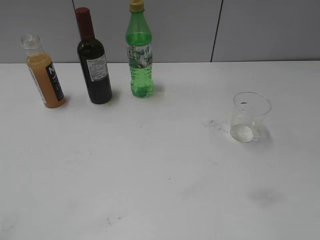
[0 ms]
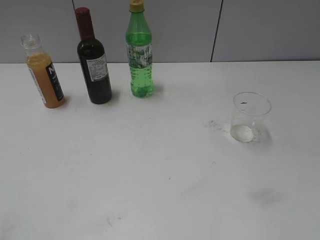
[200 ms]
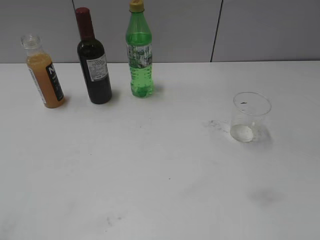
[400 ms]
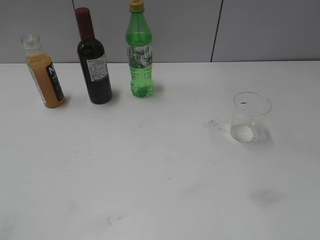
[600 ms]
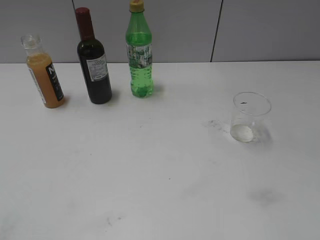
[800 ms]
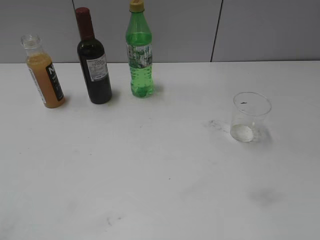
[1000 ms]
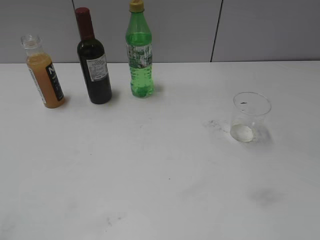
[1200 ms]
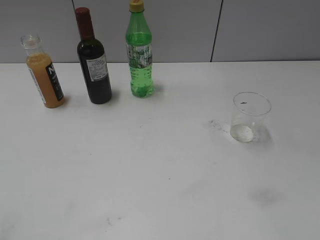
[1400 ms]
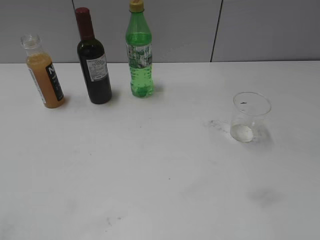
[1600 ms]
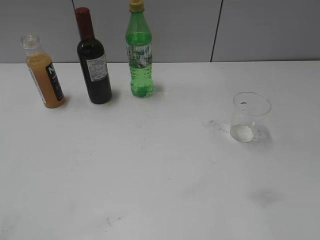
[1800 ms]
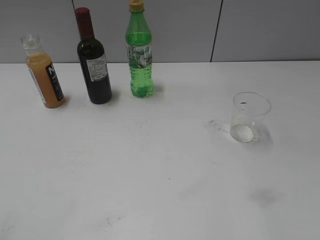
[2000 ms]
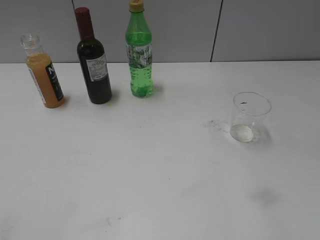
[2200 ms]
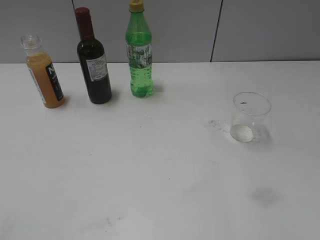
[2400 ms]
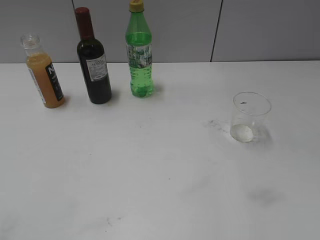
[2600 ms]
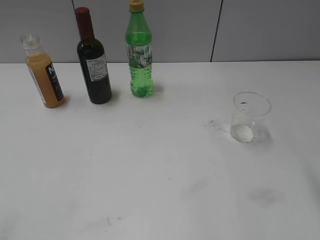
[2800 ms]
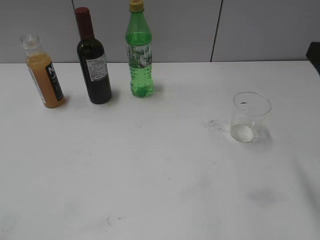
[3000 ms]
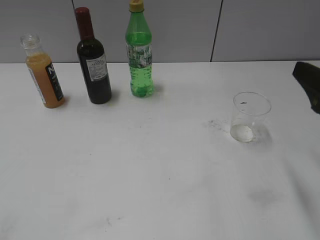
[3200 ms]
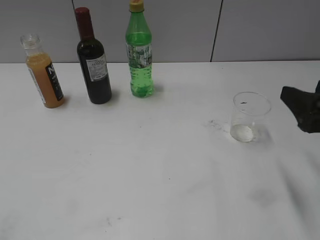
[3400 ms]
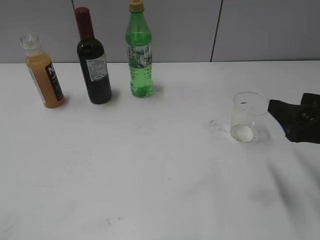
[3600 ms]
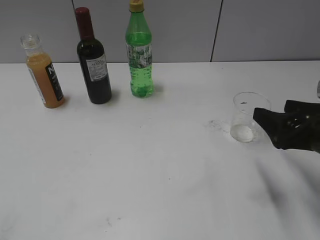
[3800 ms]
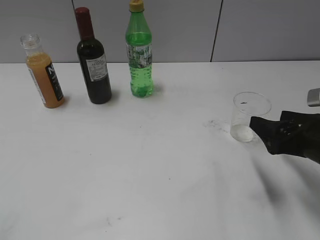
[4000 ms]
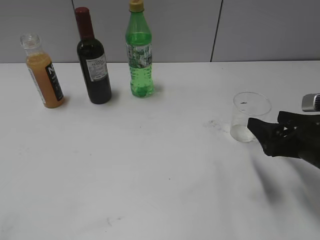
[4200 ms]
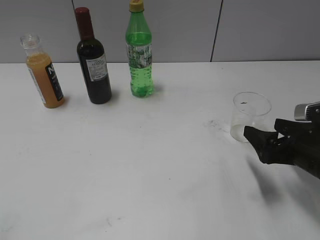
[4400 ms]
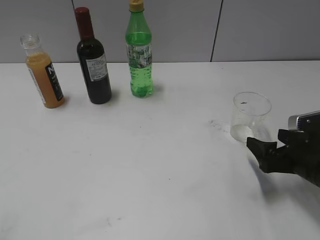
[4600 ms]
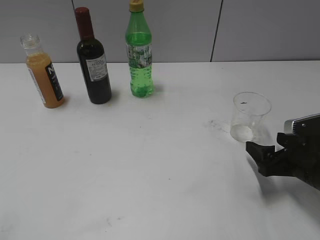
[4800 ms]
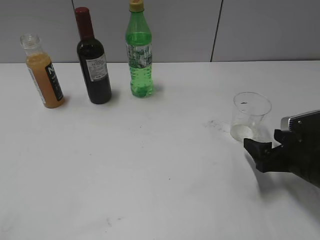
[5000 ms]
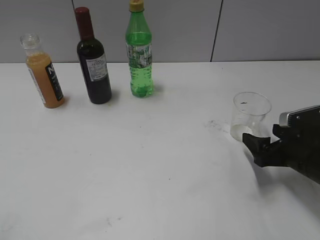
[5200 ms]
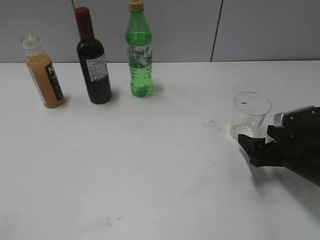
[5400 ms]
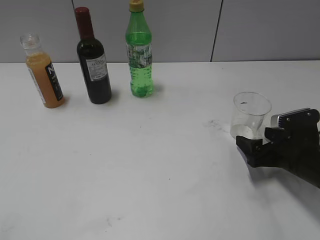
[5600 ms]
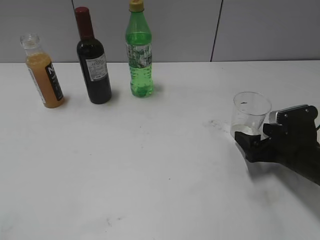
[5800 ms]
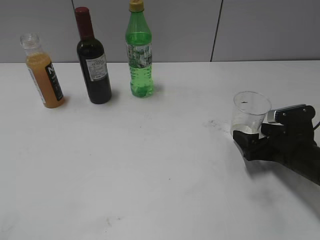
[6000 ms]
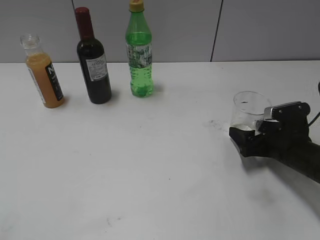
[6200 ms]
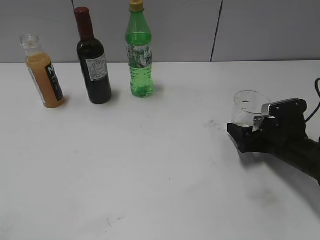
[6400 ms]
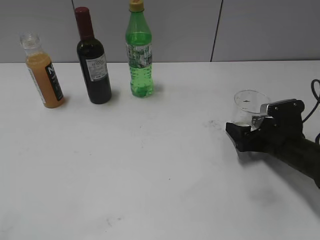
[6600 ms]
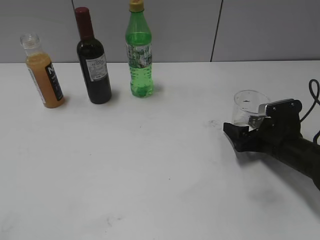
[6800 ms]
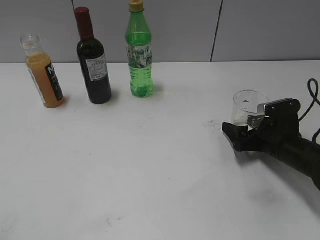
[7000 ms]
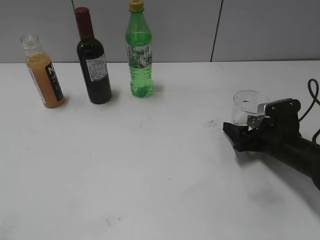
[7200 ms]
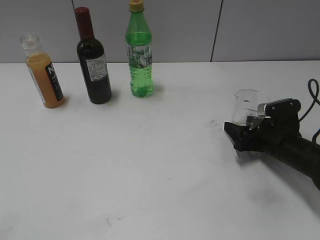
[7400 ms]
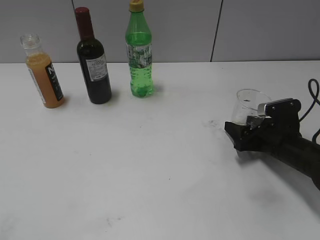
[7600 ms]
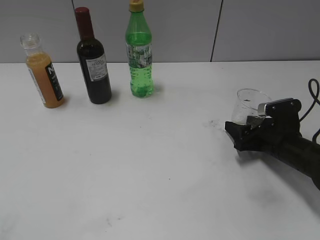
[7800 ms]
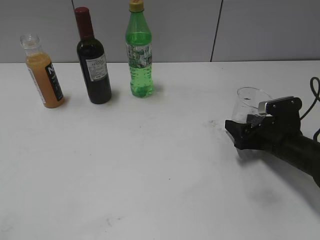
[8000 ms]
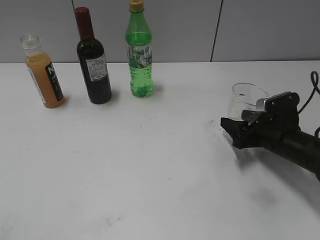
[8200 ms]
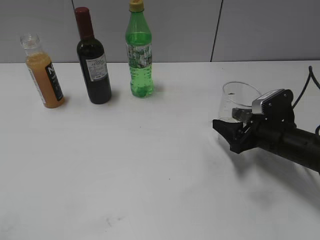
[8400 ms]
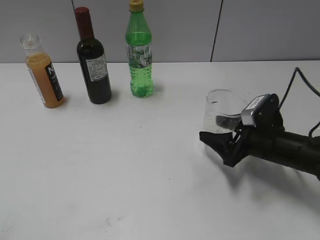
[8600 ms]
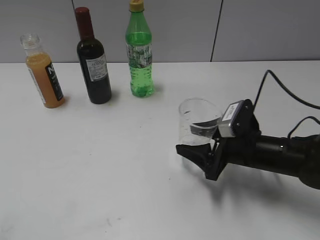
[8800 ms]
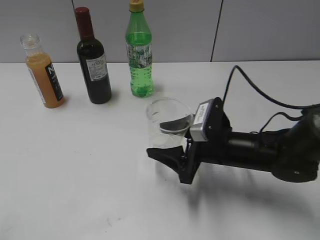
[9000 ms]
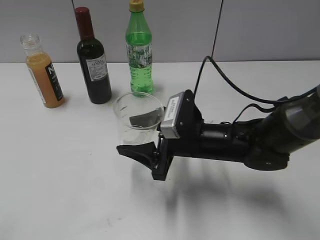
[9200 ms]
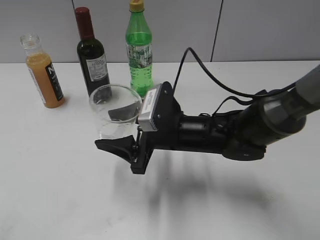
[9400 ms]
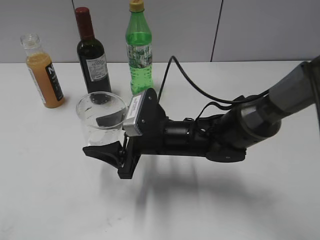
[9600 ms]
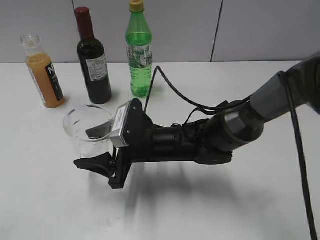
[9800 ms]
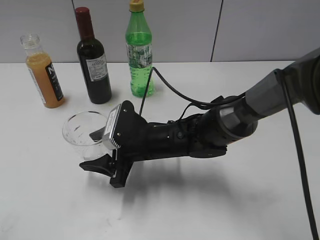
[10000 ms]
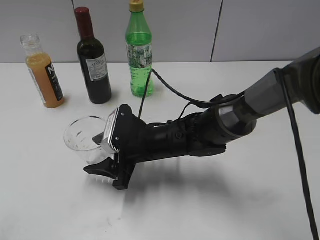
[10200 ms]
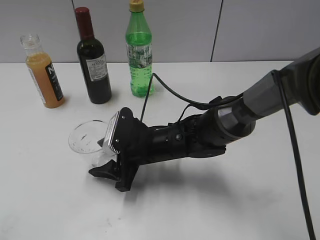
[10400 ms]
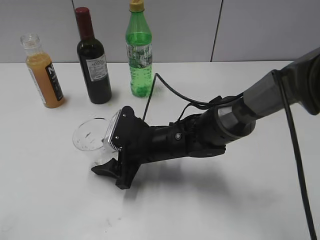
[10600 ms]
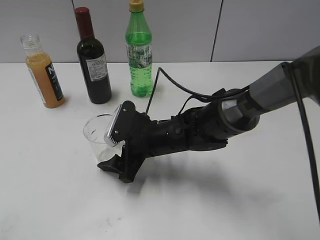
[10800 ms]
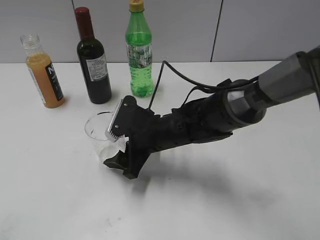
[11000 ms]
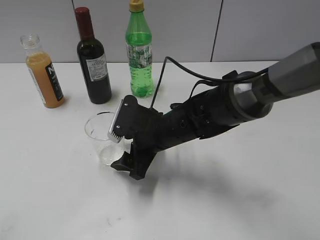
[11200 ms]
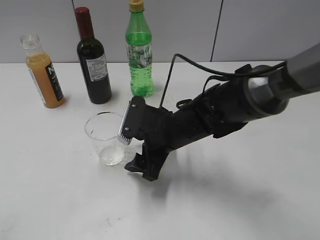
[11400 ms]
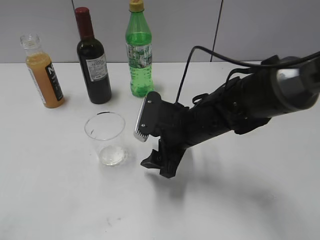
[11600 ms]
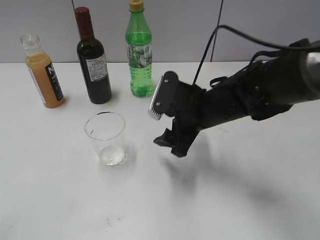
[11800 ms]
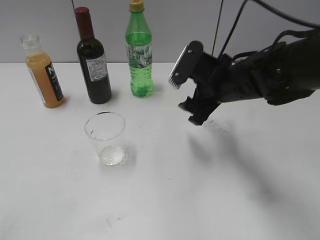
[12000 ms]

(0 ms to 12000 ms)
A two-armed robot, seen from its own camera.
Step, 3000 ms - 7600 ms: Grasp the transparent cup with right gripper.
Step, 7800 ms - 11400 ms: Place the transparent cup on the table with right gripper.
1600 ms - 3000 ms: The right gripper heads forward and downward, covering approximately 20 cm.
3000 ms - 4400 ms: The right gripper goes roughly 15 cm downward, and opens up.
4400 ms - 6000 ms: The right gripper moves downward, approximately 5 cm.
6000 ms - 7600 ms: The right gripper closes.
7600 ms - 9000 ms: The right gripper travels to the left by approximately 15 cm.
9000 ms - 10400 ms: The right gripper heads to the left, covering approximately 10 cm.
10400 ms - 12000 ms: The right gripper is displaced to the right and upward by about 15 cm, and opens.

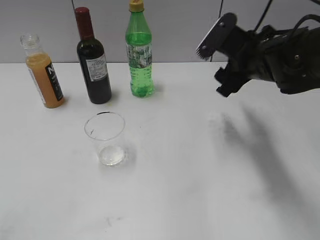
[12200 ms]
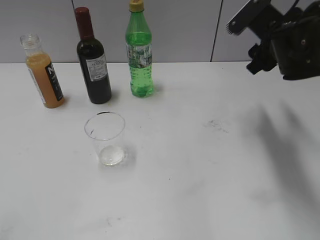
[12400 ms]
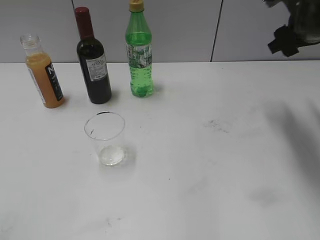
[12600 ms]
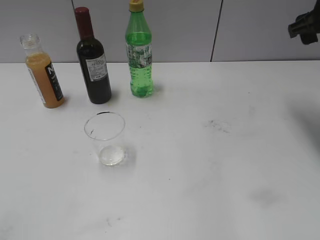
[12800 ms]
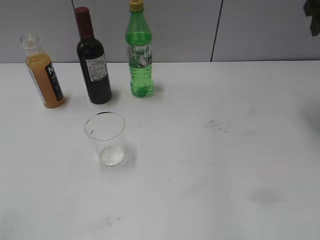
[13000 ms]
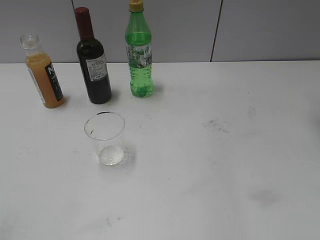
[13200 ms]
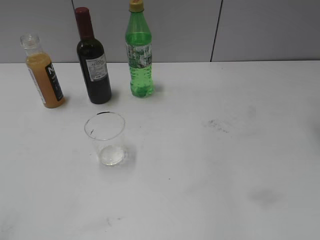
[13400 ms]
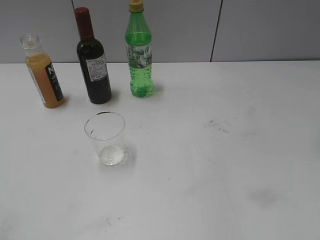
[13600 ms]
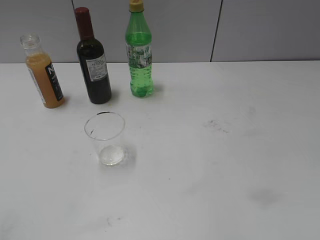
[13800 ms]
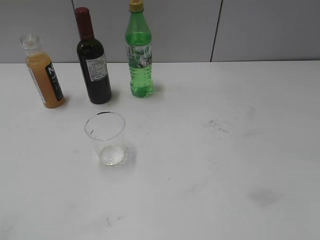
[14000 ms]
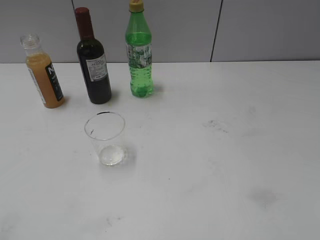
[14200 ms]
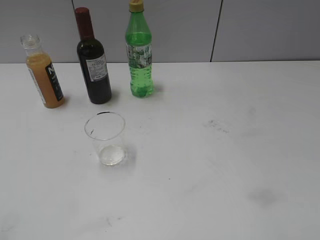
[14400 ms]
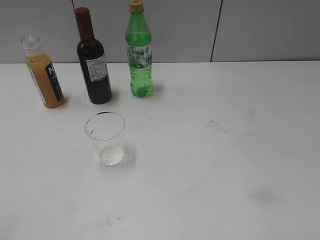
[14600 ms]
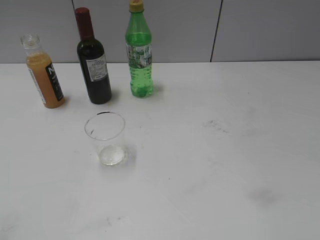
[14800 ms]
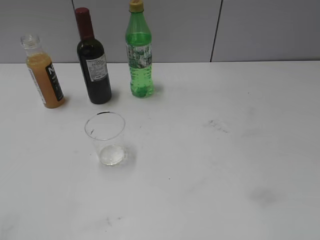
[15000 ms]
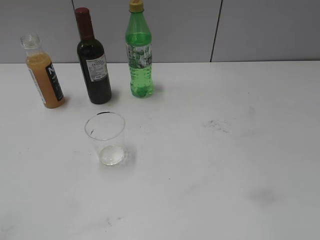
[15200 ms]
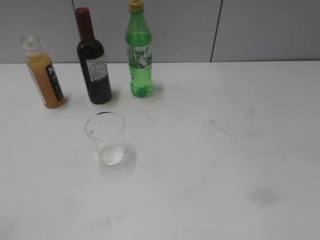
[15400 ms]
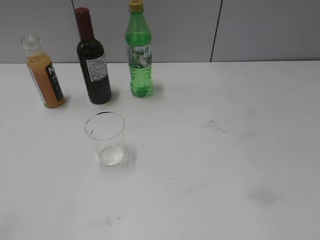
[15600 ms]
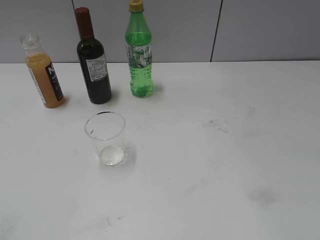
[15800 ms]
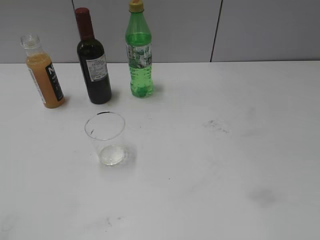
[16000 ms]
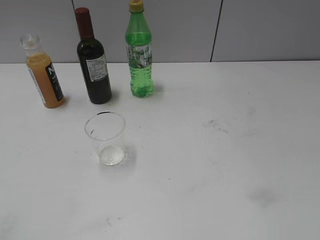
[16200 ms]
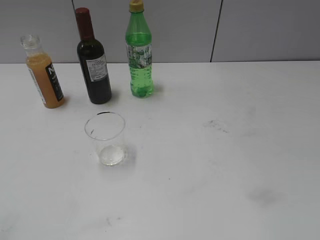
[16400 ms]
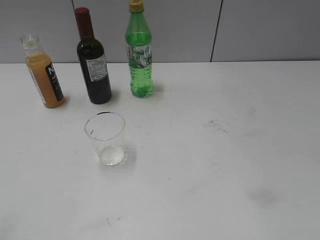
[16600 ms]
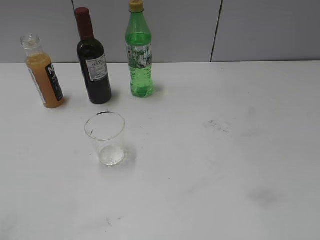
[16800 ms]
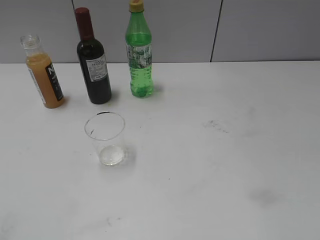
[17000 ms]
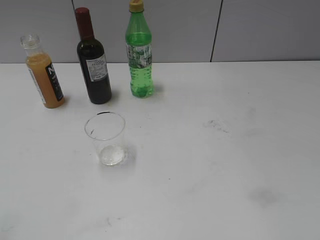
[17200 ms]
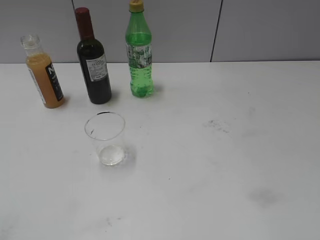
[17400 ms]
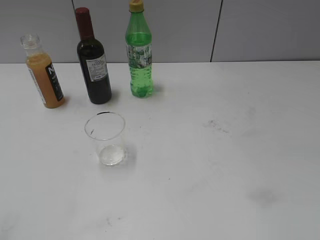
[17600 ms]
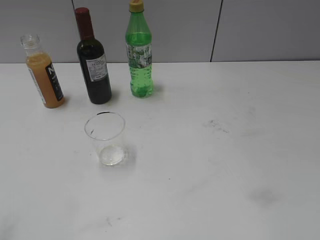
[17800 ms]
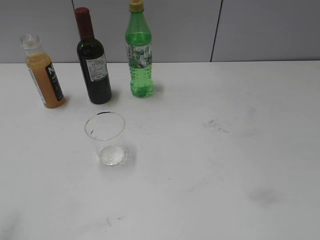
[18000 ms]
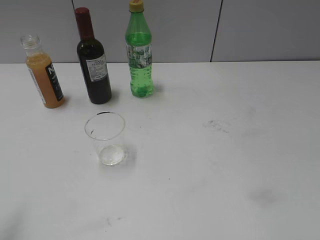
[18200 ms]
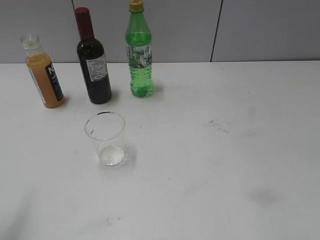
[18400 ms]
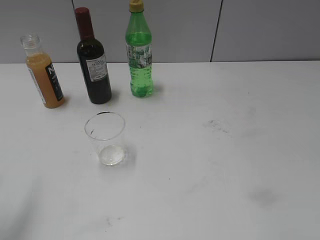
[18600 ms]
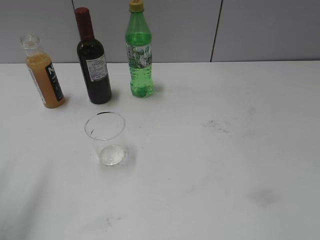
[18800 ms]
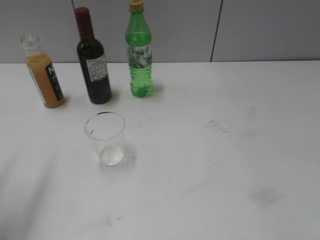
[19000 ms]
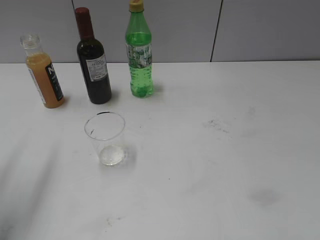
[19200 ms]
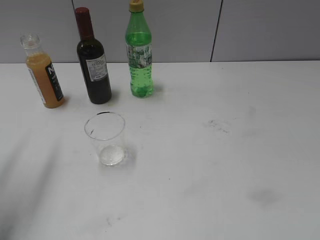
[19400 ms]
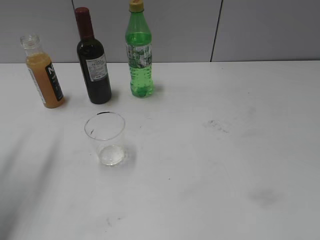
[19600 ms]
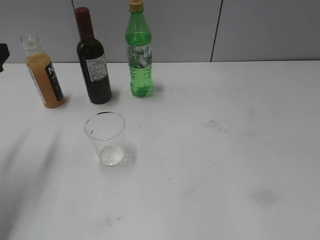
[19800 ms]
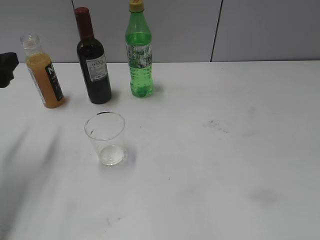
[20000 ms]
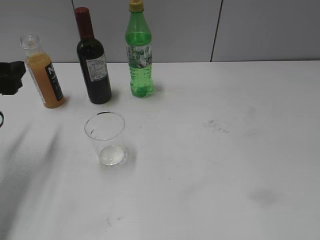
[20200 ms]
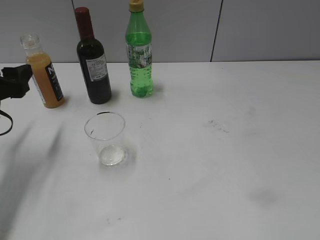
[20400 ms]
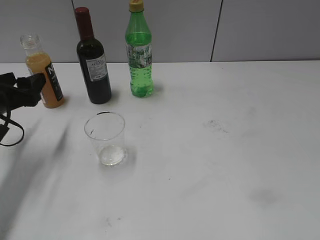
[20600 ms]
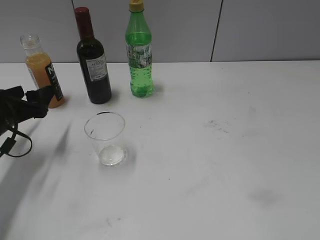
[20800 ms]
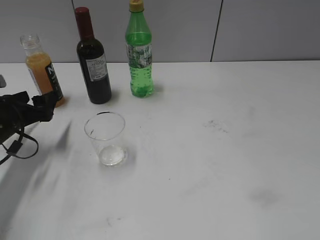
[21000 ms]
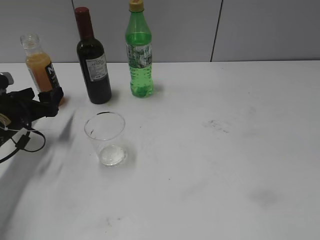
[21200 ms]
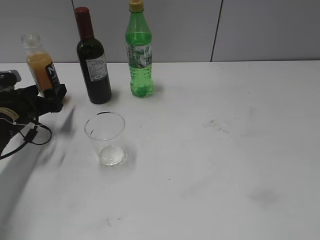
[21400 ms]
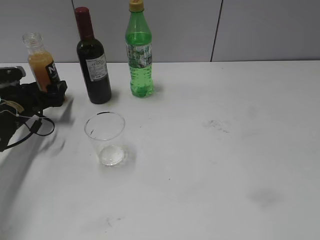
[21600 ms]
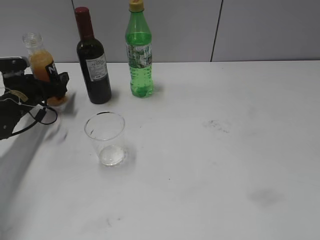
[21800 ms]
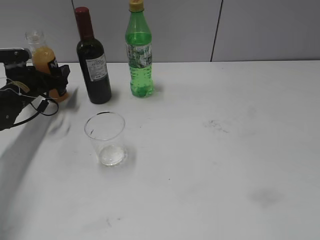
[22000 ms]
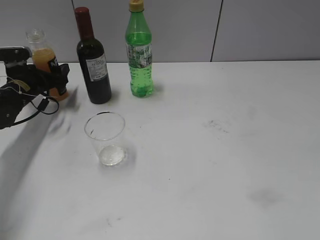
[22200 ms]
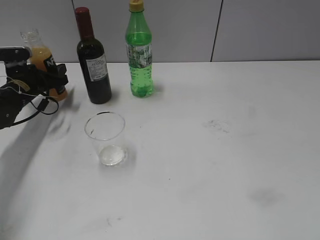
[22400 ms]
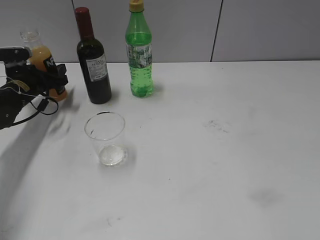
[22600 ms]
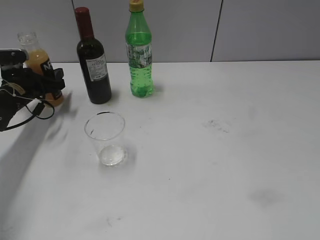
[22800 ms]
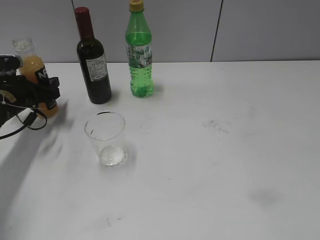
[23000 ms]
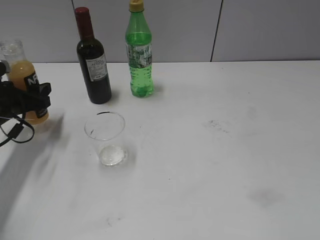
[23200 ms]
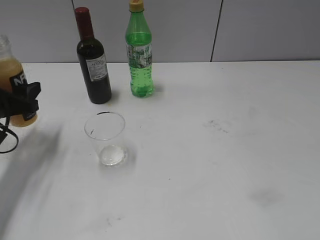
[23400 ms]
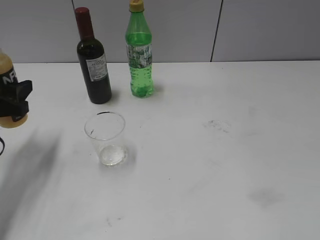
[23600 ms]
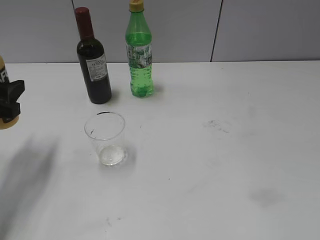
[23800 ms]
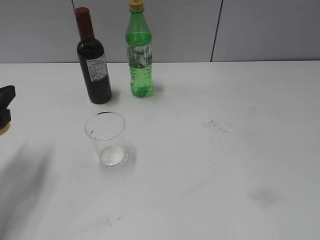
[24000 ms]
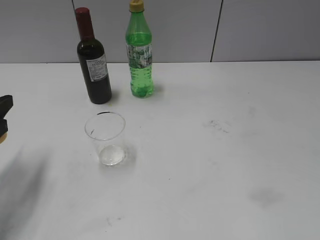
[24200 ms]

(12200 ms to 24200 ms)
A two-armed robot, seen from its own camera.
Step, 12200 ms - 22600 ms: Grasp the bottle with orange juice with left gripper.
12200 ms - 13800 ms: The right gripper shifts approximately 25 cm upward, to the right and backward.
18200 ms - 19800 ms: The left gripper moves forward and downward, roughly 20 cm.
19800 ms - 21200 ms: The left gripper moves downward and forward, about 15 cm, and opens up.
21200 ms - 22600 ms: The left gripper moves forward, some 10 cm, and closes up.
22600 ms - 24200 ms: The left gripper heads backward and upward, covering some 25 cm.
